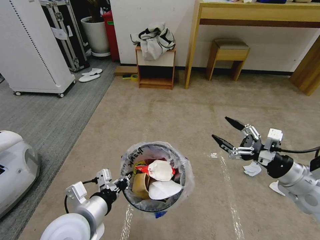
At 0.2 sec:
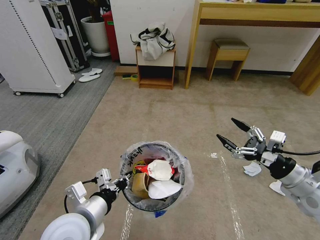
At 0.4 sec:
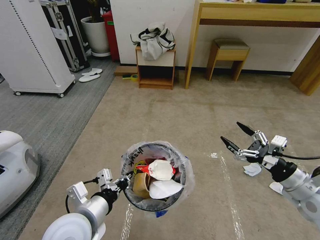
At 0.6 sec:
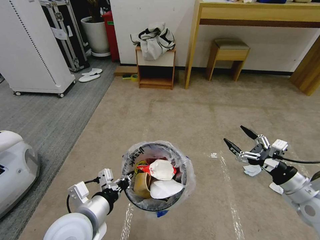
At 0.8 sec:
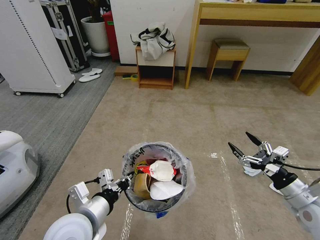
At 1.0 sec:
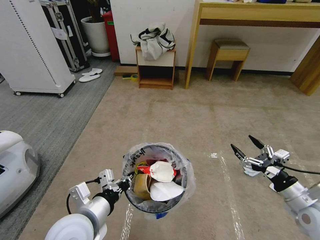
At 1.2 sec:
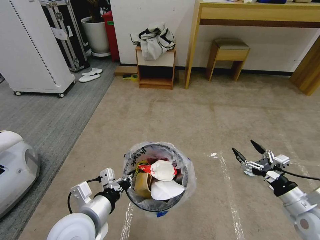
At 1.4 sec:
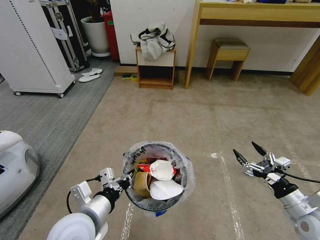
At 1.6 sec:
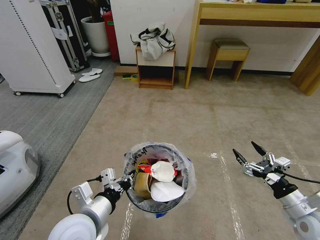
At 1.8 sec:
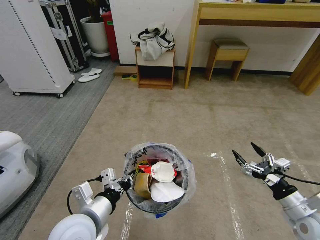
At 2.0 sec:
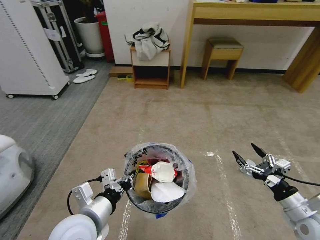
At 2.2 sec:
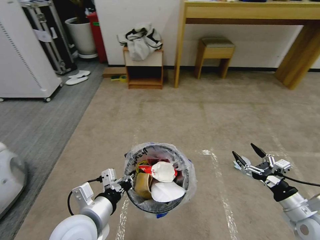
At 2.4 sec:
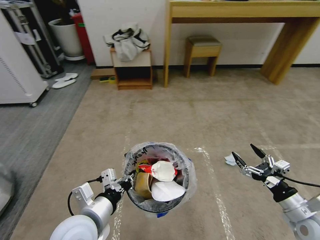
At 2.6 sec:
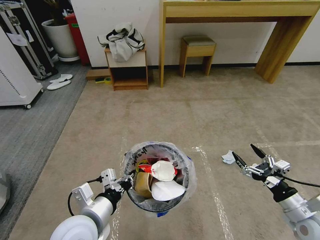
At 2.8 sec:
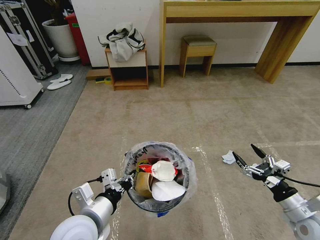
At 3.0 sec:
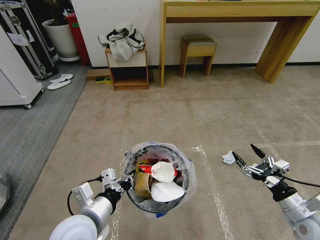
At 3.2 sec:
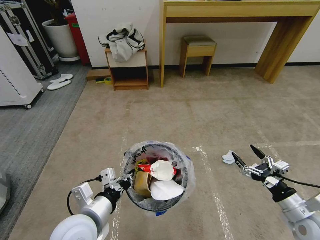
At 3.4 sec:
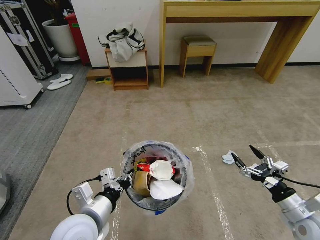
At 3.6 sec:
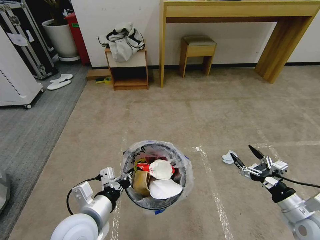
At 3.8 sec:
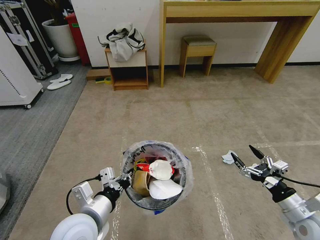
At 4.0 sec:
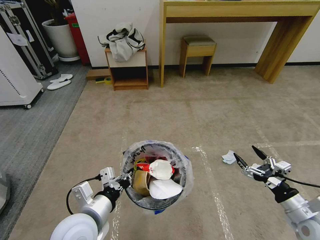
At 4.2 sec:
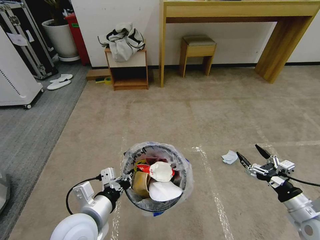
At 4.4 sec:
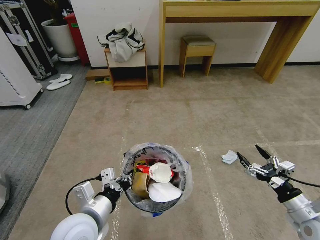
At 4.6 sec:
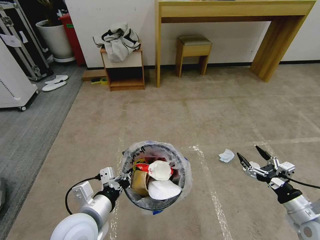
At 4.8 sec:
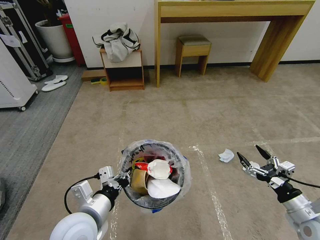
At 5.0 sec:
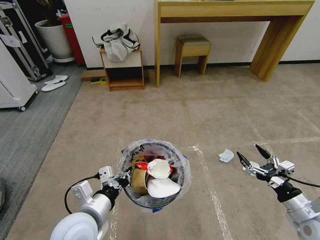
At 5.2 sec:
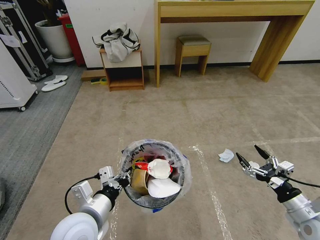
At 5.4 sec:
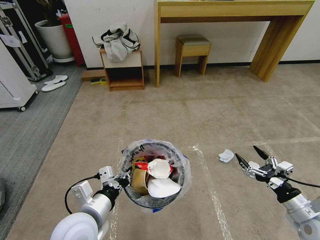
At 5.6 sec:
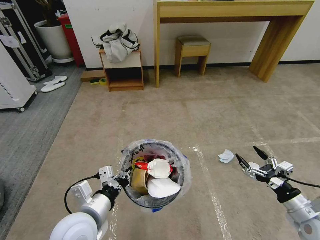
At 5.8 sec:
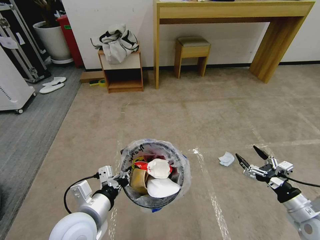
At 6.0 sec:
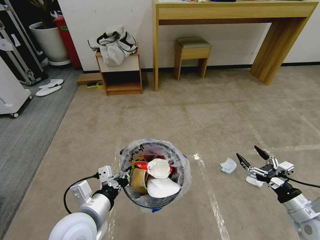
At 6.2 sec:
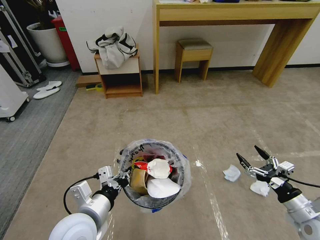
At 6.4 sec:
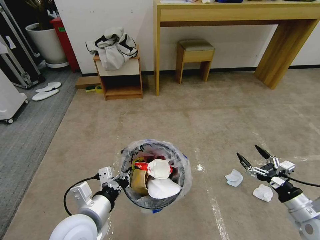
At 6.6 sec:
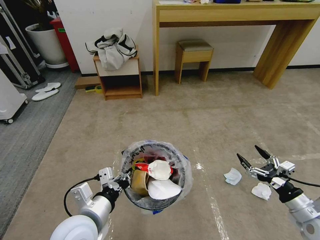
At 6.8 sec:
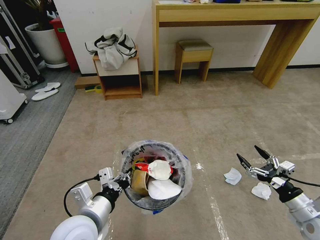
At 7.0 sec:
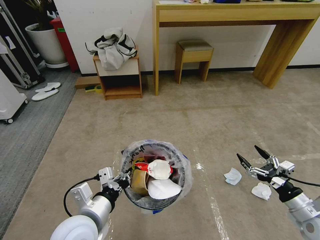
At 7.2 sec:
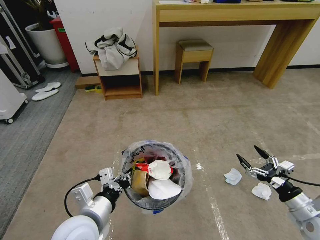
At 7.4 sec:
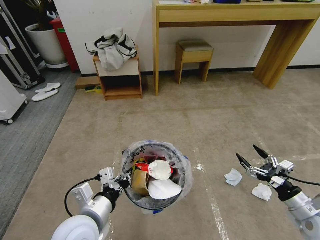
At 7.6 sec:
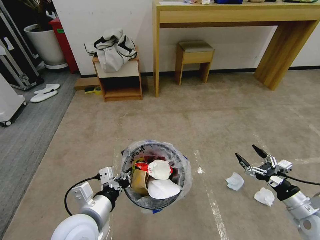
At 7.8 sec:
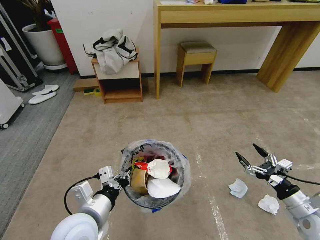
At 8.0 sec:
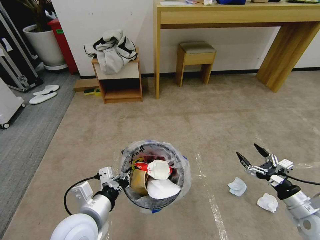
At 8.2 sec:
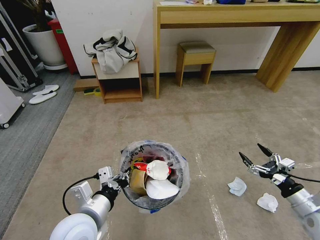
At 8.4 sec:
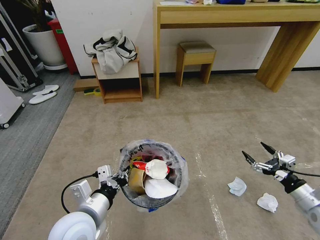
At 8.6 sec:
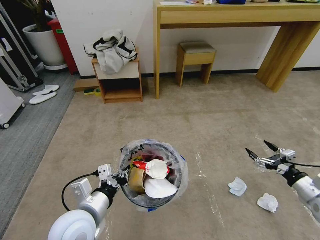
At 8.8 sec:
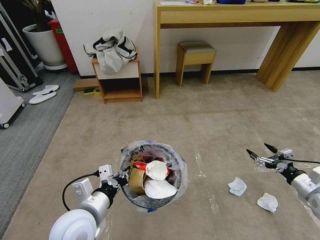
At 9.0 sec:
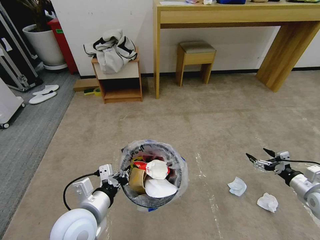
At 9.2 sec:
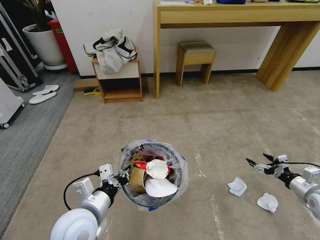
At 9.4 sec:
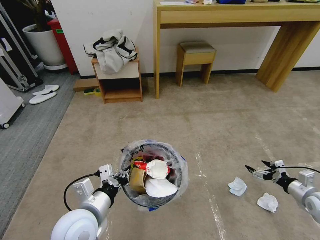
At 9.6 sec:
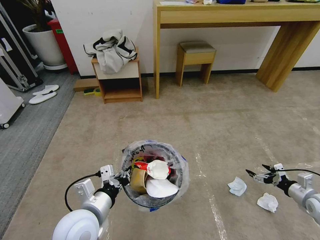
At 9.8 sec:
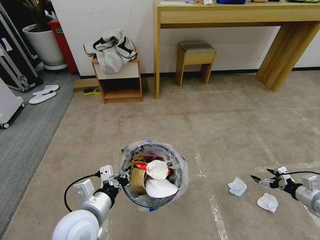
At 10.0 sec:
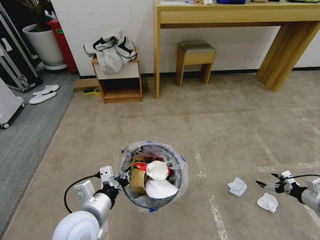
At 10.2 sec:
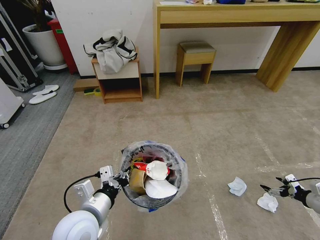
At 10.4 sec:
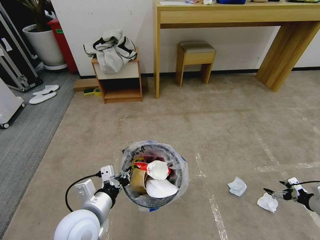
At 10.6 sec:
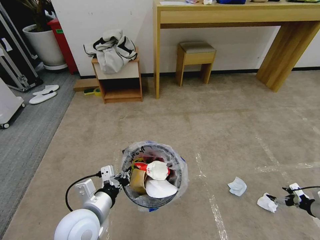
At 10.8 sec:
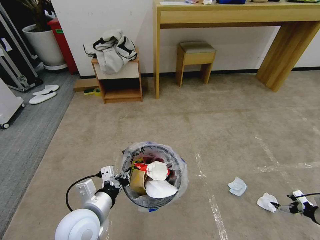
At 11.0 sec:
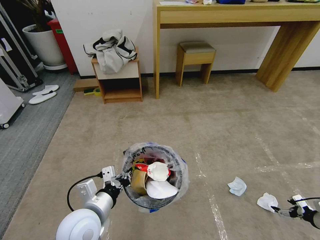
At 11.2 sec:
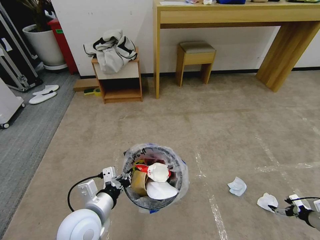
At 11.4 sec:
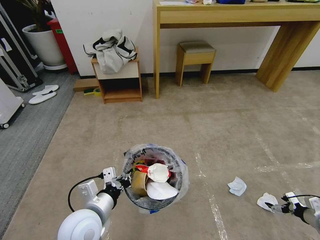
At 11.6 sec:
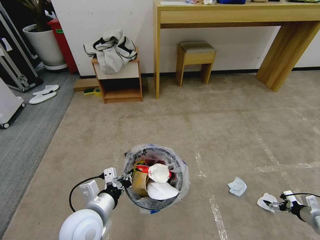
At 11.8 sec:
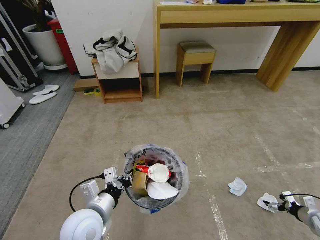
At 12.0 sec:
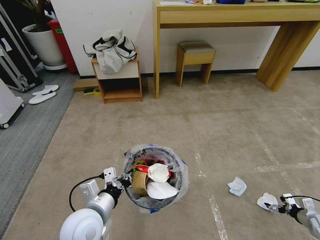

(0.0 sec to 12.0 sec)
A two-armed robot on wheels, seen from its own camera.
Task of the whole recording: Pick up the trash bin and place the garbage on the floor into it.
0.0 sec - 1.6 sec: The right gripper heads downward, covering approximately 10 cm.
3.0 sec - 4.4 sec: The two grippers keep their place.
7.6 sec - 9.0 sec: The right gripper travels to the right and forward by about 10 cm.
9.0 sec - 10.4 sec: The right gripper travels to the right by about 10 cm.
10.4 sec - 12.0 sec: The right gripper is displaced downward by approximately 10 cm.

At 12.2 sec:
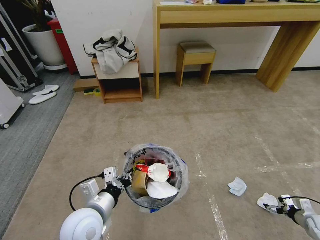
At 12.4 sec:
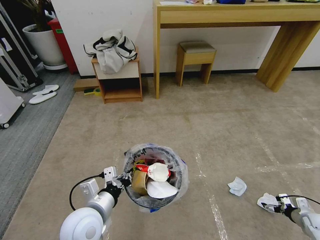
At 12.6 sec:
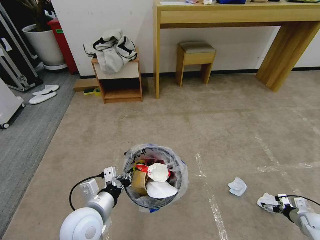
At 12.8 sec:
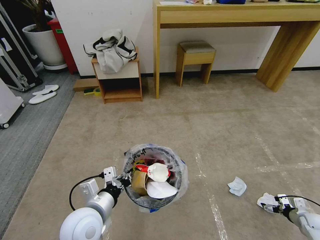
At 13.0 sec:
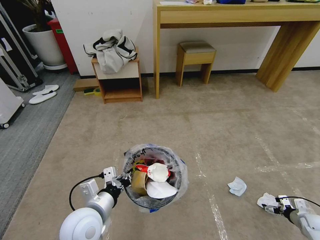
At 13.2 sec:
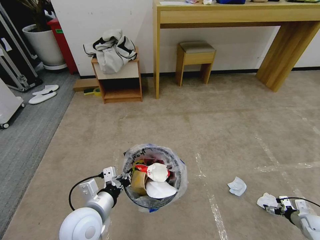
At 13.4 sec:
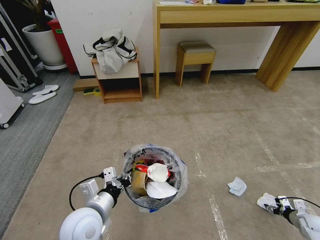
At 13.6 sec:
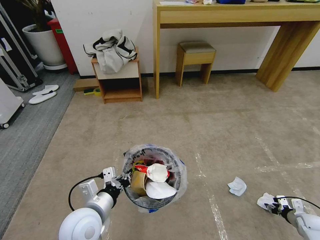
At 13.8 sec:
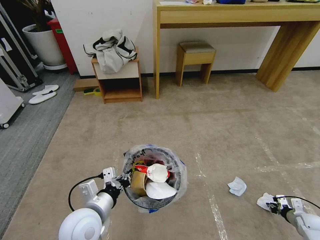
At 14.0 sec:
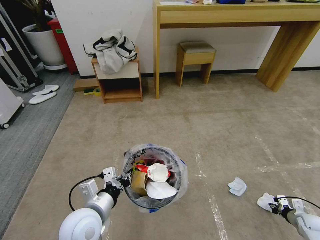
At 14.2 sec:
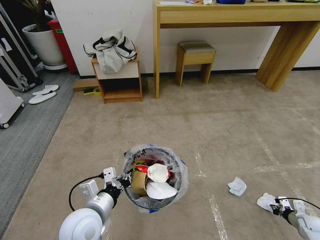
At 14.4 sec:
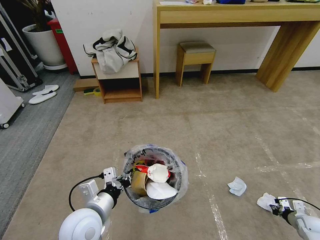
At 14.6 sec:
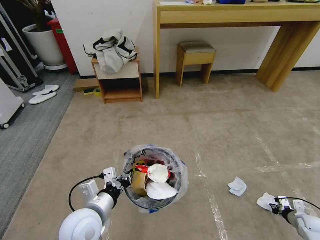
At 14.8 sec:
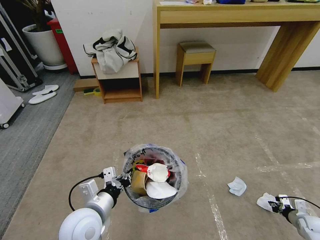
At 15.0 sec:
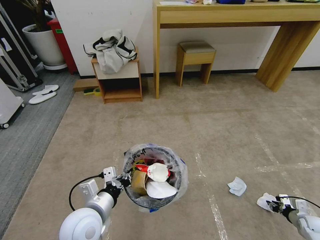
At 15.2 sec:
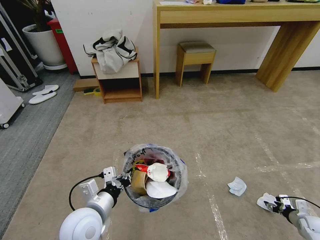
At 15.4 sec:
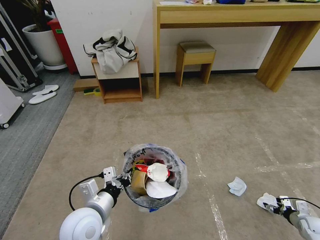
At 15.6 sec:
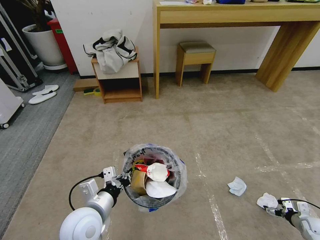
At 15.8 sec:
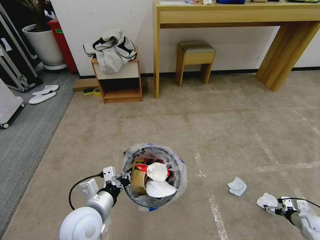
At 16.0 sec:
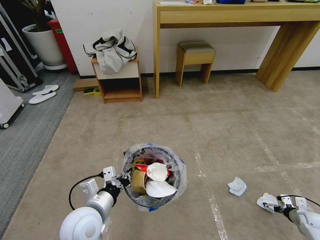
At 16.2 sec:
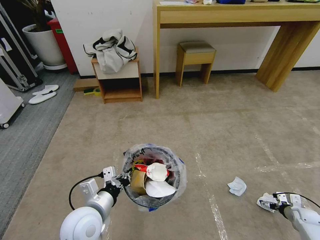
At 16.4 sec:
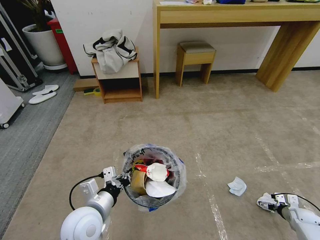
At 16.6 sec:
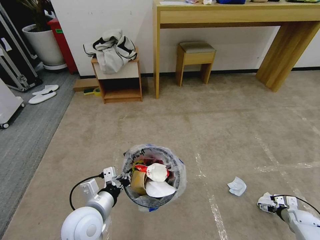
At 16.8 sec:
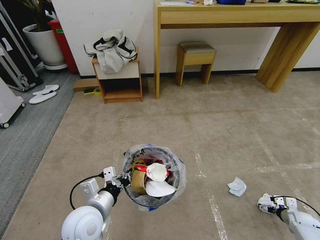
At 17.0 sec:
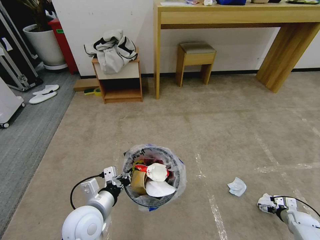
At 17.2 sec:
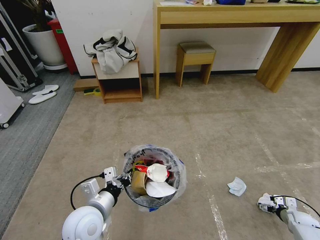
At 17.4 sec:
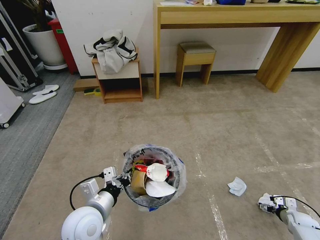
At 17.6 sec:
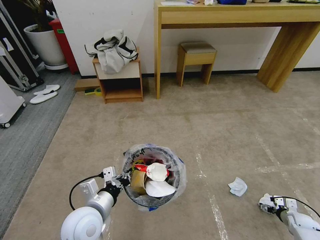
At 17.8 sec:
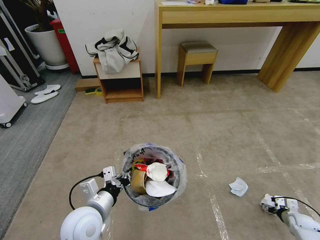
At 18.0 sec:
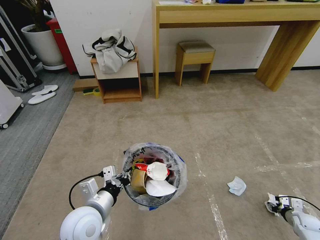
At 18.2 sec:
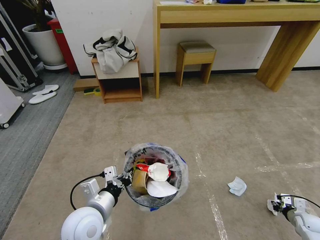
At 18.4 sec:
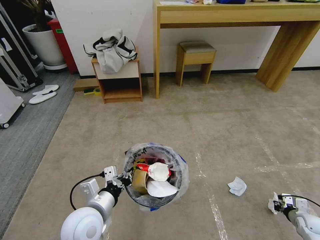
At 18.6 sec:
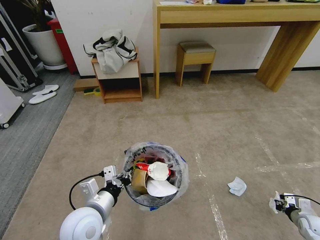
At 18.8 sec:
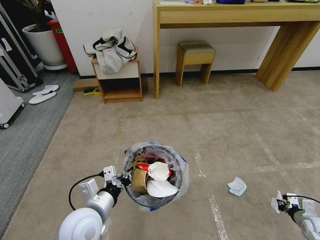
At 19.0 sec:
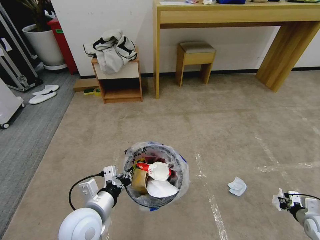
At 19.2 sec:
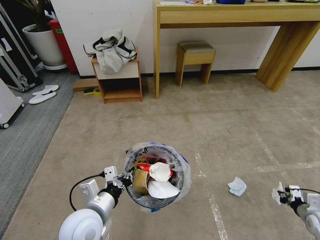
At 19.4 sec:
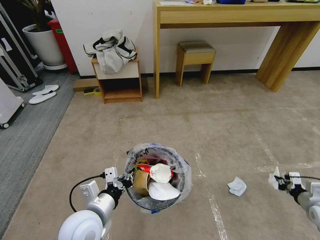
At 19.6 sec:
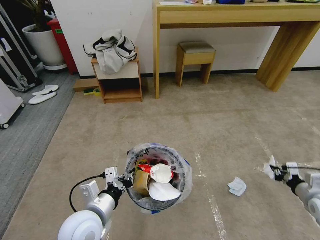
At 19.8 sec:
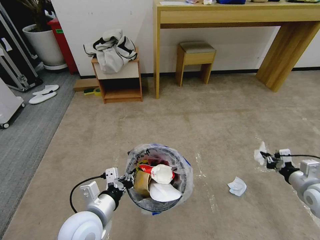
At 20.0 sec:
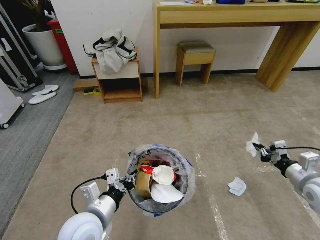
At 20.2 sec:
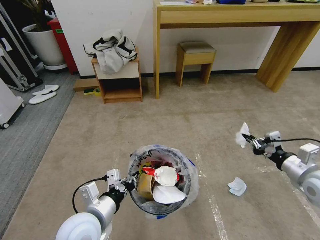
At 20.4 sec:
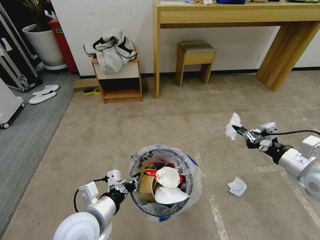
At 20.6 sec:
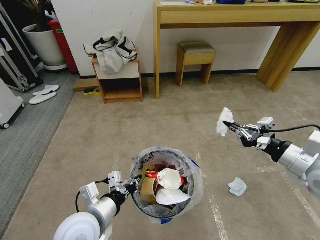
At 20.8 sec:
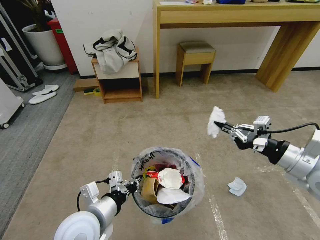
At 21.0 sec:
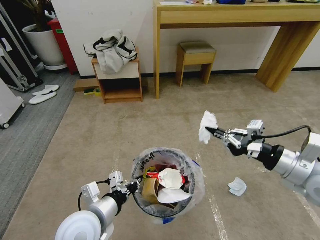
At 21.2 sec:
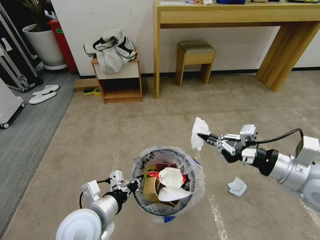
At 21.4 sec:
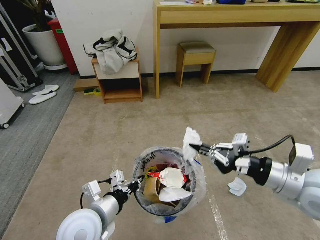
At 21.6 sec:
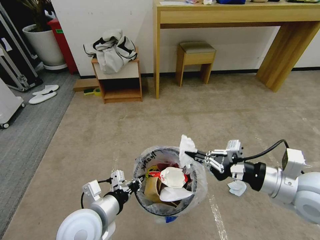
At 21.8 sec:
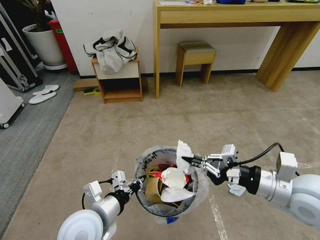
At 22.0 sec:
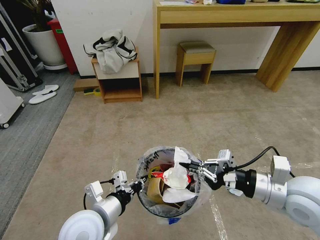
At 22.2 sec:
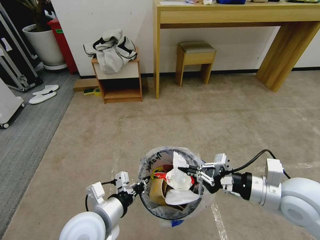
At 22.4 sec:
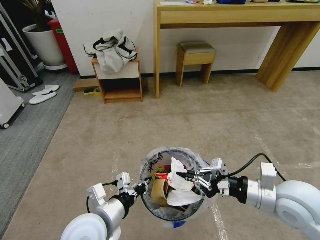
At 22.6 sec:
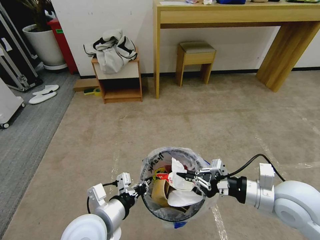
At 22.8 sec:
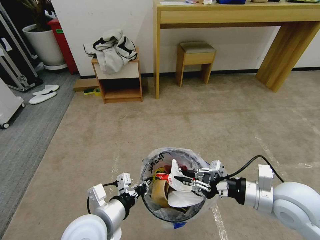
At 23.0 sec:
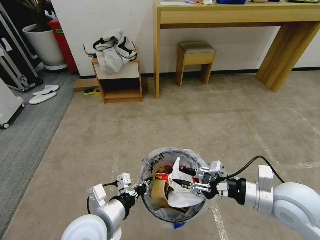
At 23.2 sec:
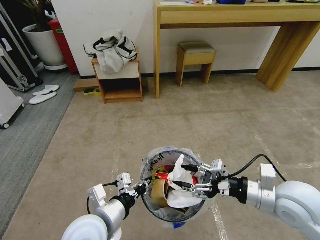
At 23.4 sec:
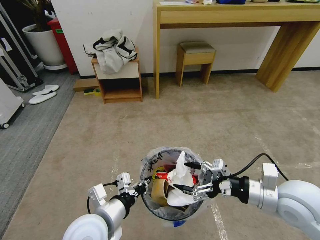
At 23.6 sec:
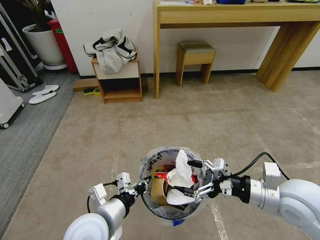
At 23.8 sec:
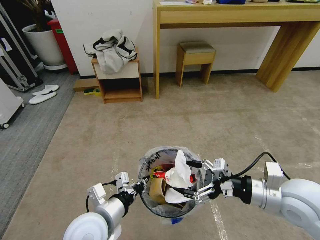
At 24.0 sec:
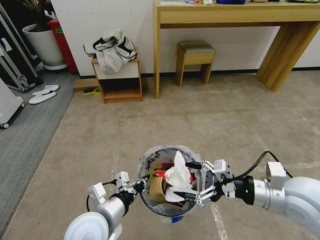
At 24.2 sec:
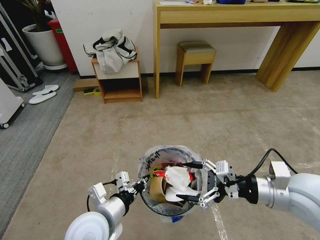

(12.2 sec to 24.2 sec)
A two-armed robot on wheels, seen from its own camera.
Task of the whole recording: Pick up the trash bin and place the garbage on the floor into it.
12.2 sec - 13.8 sec: The right gripper closes its fingers.
13.8 sec - 15.2 sec: The grippers move only a little.
15.2 sec - 16.6 sec: The right gripper opens its fingers.
16.6 sec - 18.2 sec: The right gripper closes its fingers.
18.2 sec - 19.8 sec: The right gripper travels upward and to the left by some 25 cm.
19.8 sec - 21.2 sec: The right gripper moves upward and to the left, roughly 20 cm.
21.2 sec - 22.6 sec: The right gripper goes approximately 5 cm downward.
22.6 sec - 24.2 sec: The right gripper opens its fingers.
